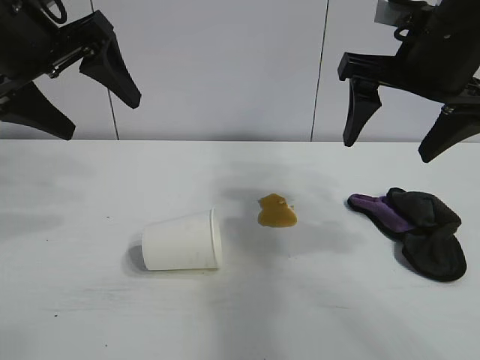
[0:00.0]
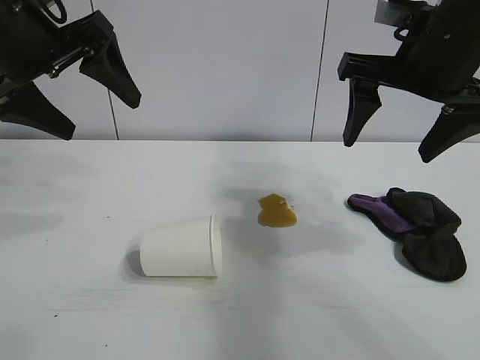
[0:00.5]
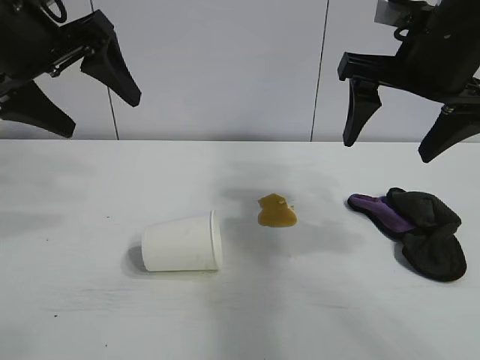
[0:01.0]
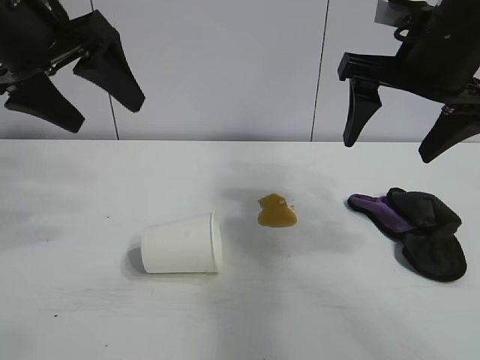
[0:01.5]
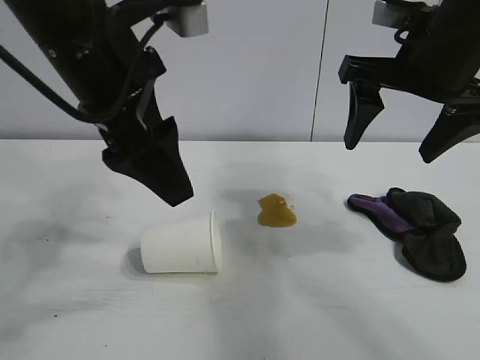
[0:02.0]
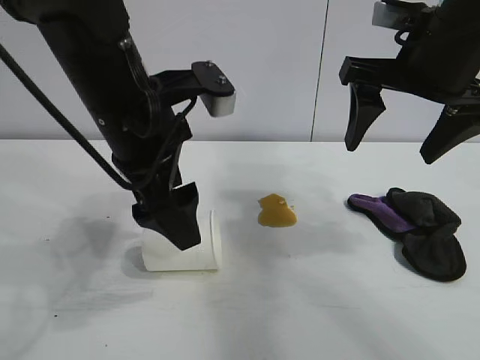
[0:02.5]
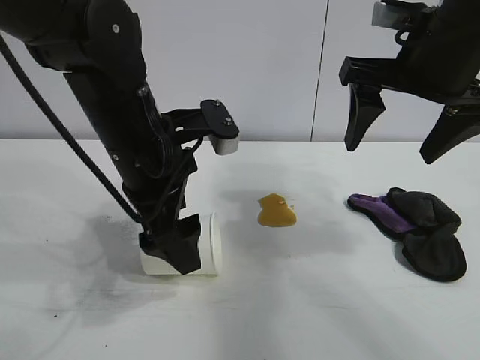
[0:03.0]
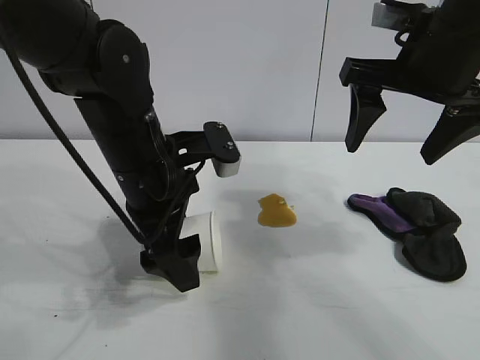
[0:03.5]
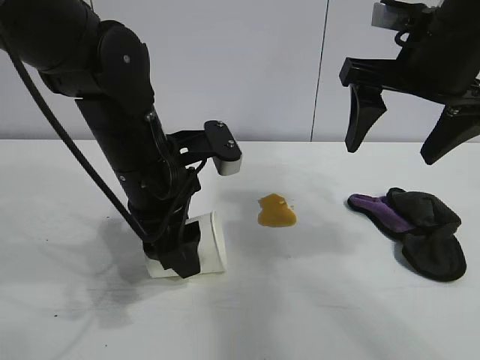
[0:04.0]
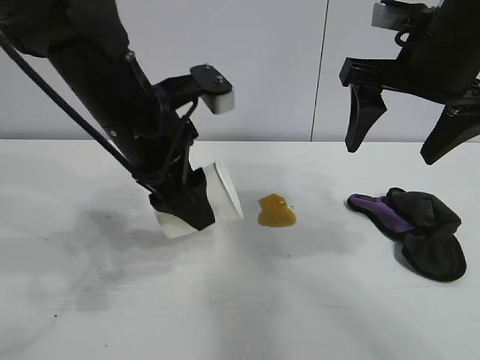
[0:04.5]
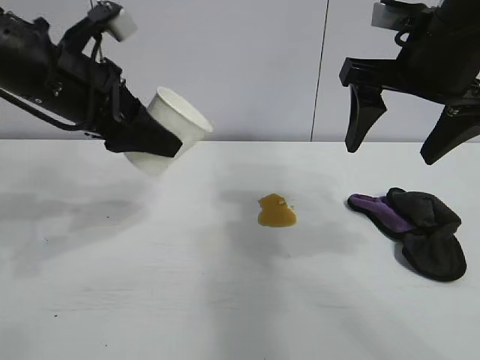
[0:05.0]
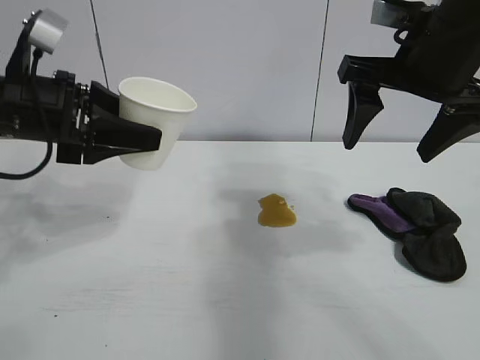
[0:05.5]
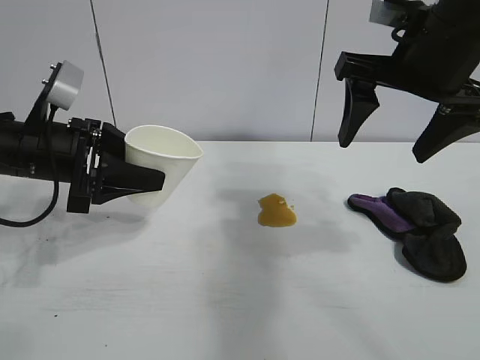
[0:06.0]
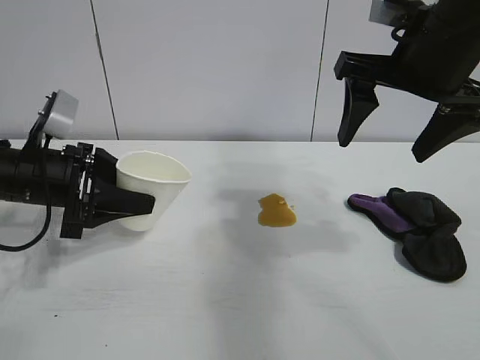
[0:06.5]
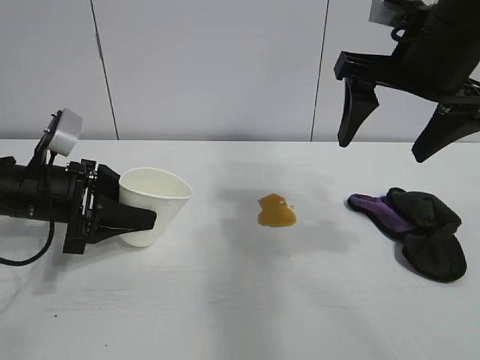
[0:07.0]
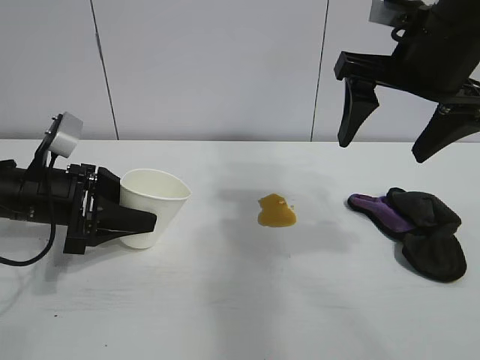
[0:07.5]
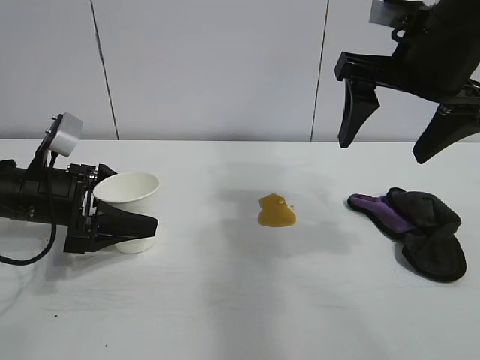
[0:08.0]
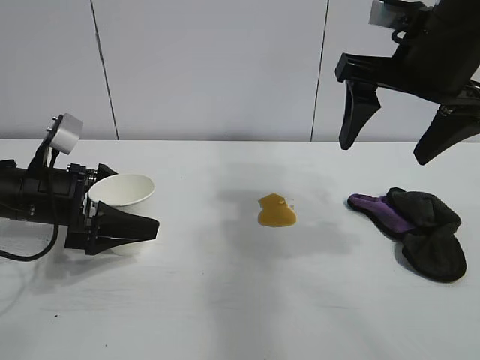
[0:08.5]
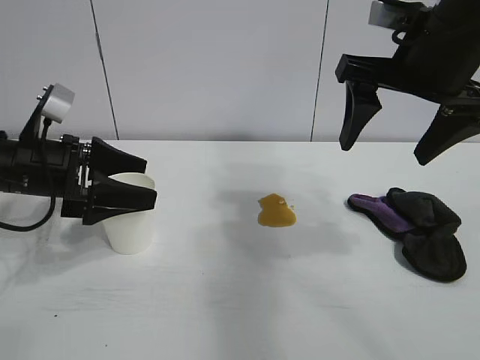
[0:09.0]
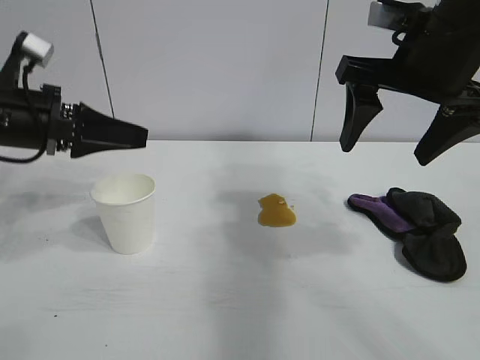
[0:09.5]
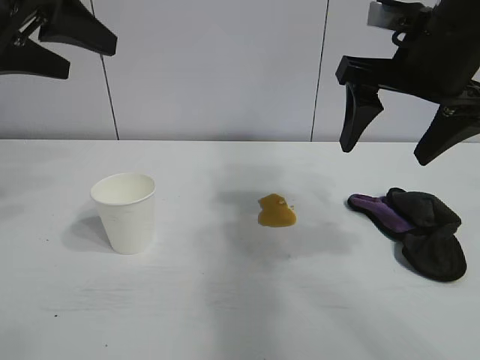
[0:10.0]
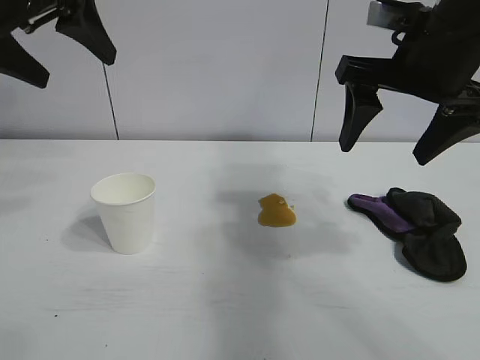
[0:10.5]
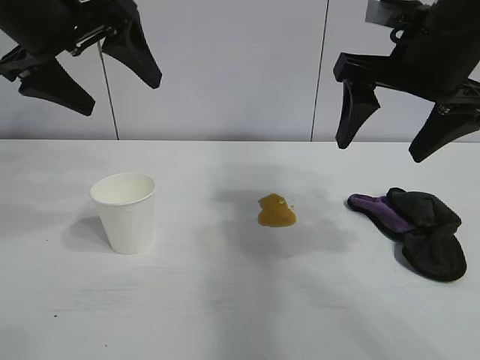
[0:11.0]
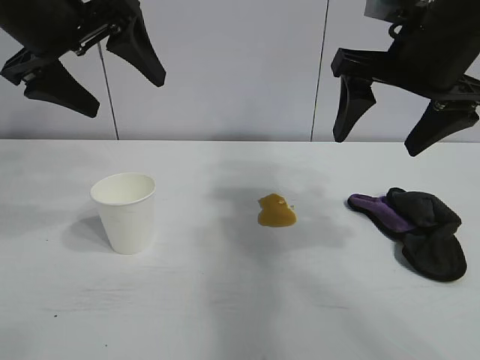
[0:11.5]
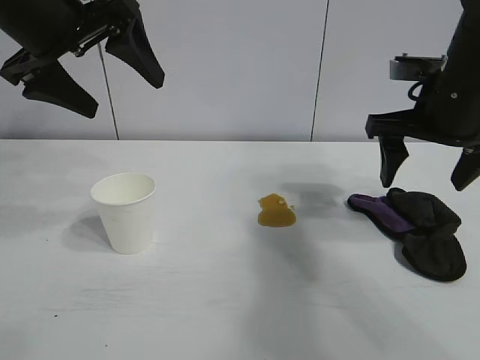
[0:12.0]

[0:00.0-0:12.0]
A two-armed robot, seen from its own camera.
Task of the whole recording: the left gripper pick up the fallen cup and place it upright, the right gripper grasp the black rag and wipe the stain on the table, the right gripper put the black rag back in its original position.
Step, 0:01.5 to 0:03.5: Grasp the paper cup with left gripper.
Step, 0:04.0 to 0:08.0: Stand the paper cup upright with left gripper.

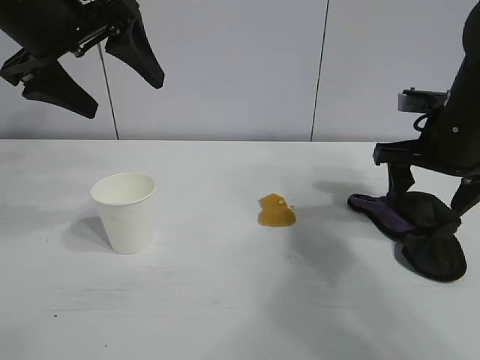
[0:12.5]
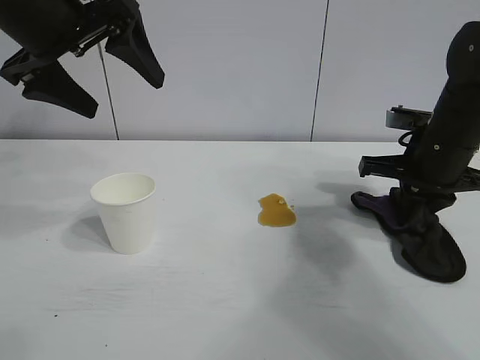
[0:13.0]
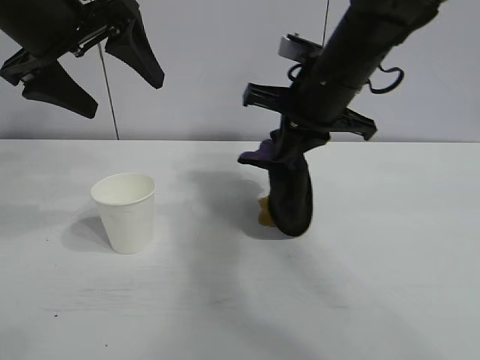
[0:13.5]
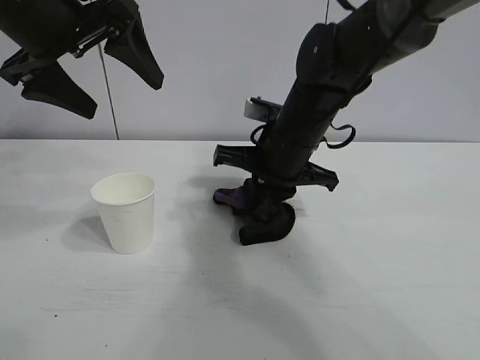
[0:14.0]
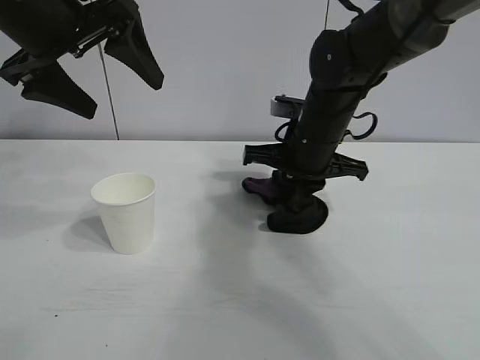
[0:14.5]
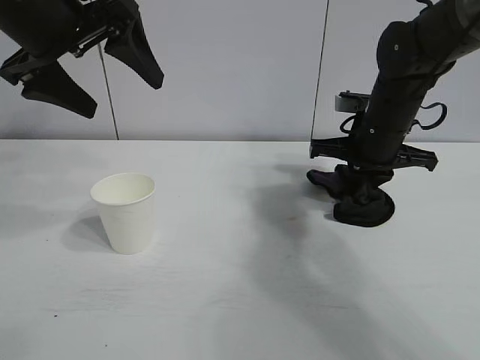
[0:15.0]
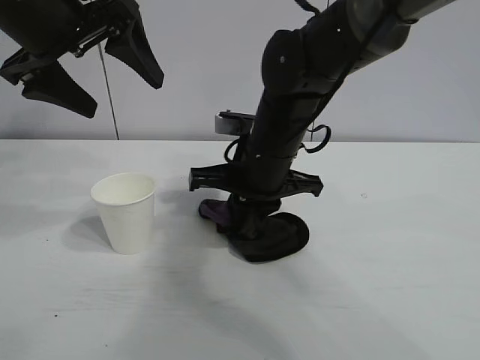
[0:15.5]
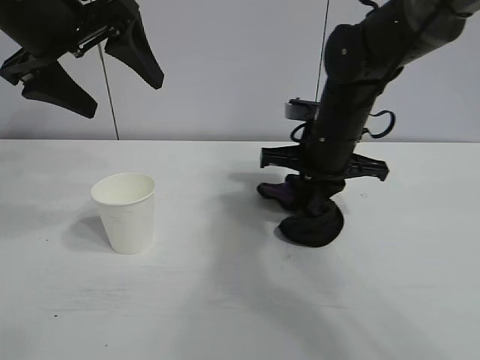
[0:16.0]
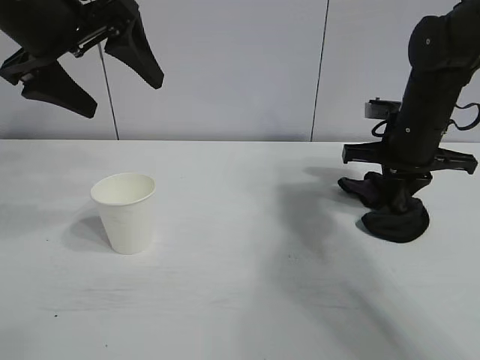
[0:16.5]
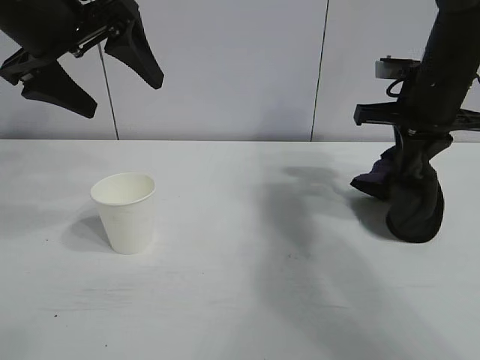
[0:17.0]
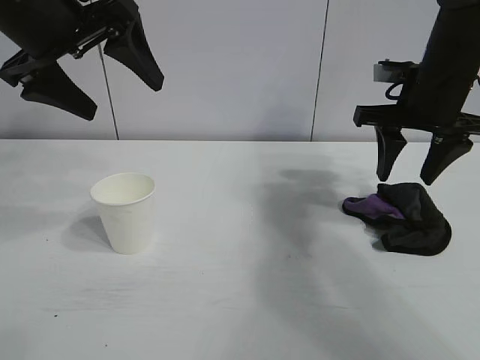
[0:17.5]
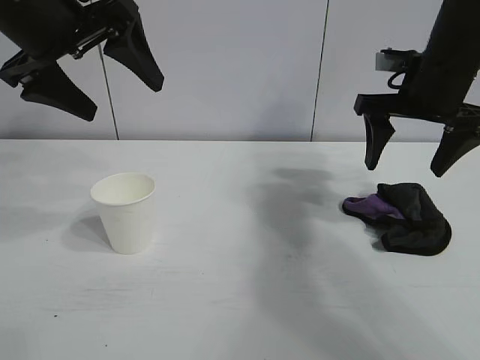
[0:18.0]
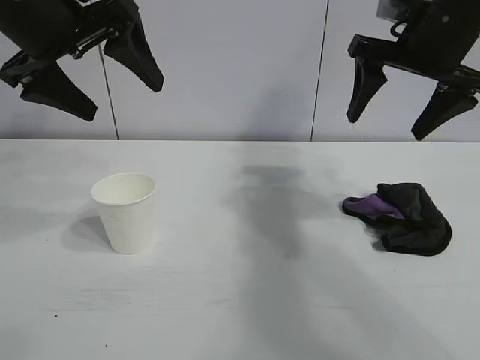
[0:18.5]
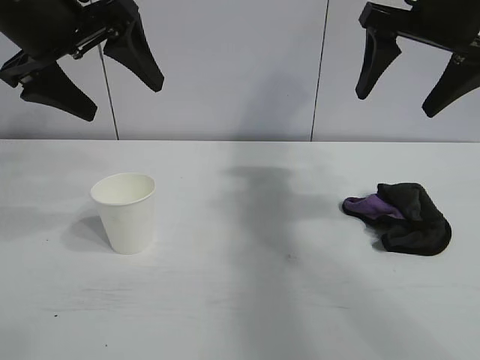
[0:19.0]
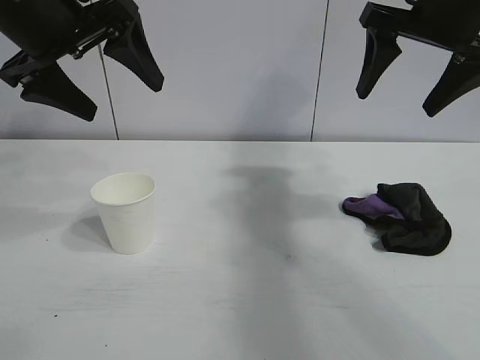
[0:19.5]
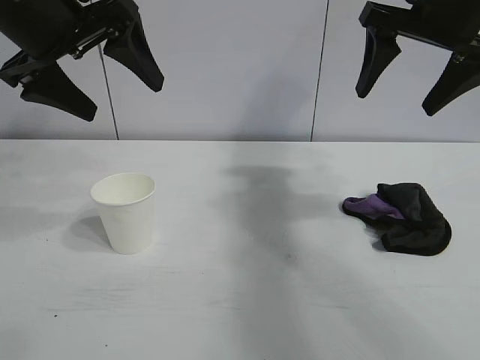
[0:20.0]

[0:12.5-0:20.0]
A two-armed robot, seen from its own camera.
Task of the whole recording: the left gripper pick up the fallen cup and place it upright, the right gripper grasp the black rag and wipe the stain on the table, the right gripper put the black rag back in its original position.
Step, 0:13.0 to 0:16.5: Wipe the stains off the table with the rag with right gripper.

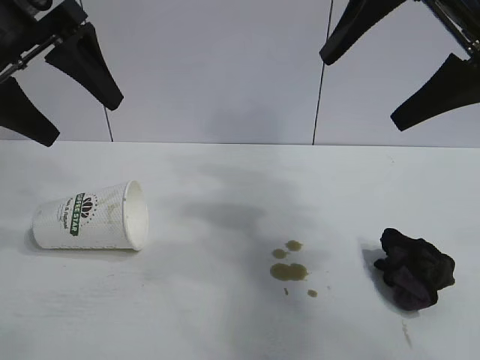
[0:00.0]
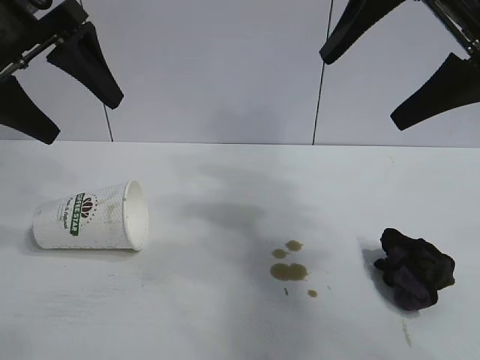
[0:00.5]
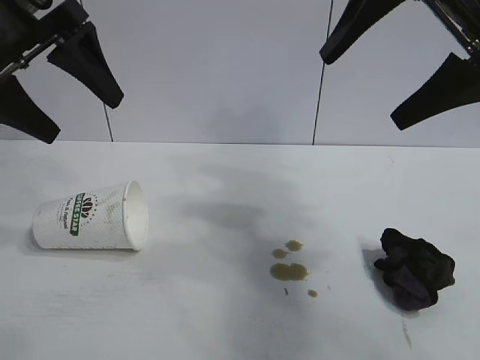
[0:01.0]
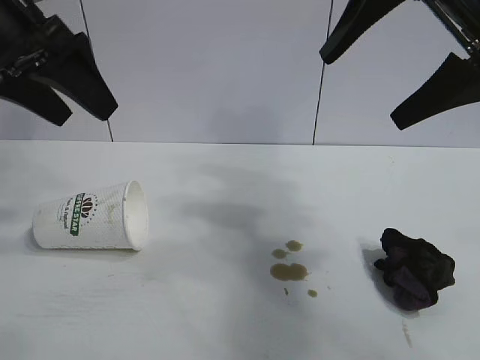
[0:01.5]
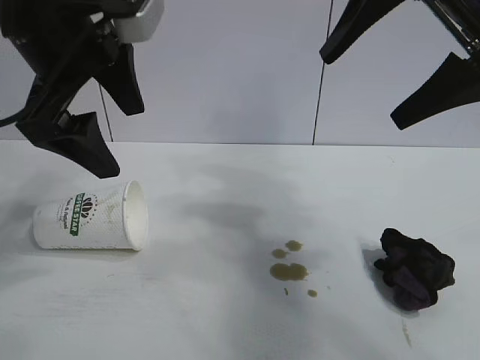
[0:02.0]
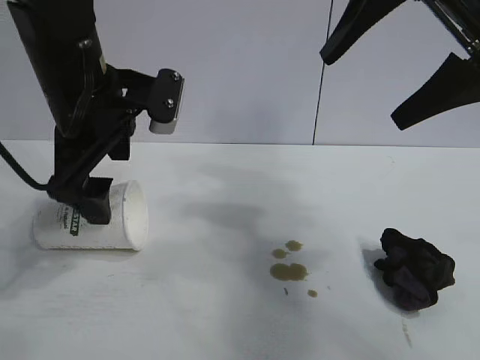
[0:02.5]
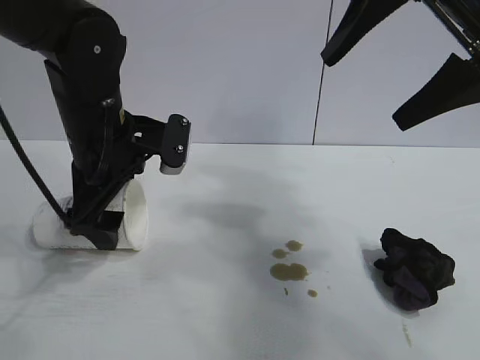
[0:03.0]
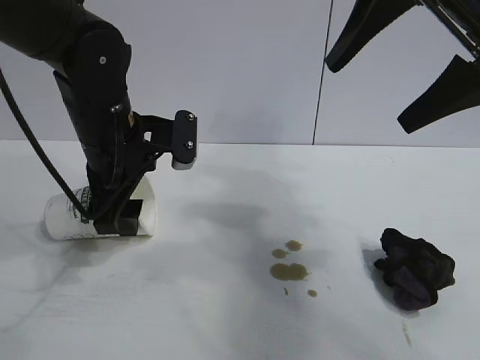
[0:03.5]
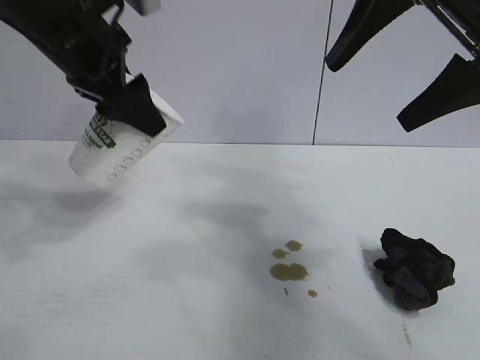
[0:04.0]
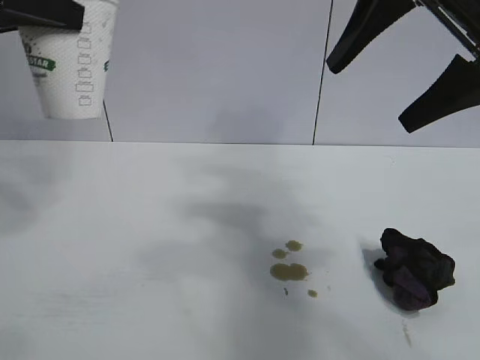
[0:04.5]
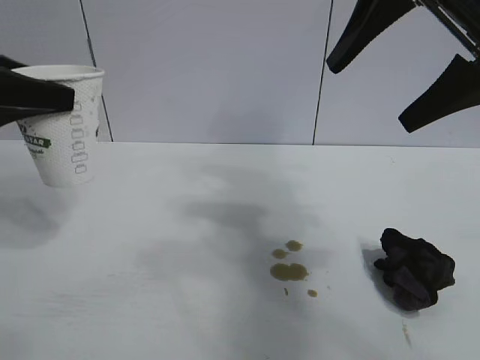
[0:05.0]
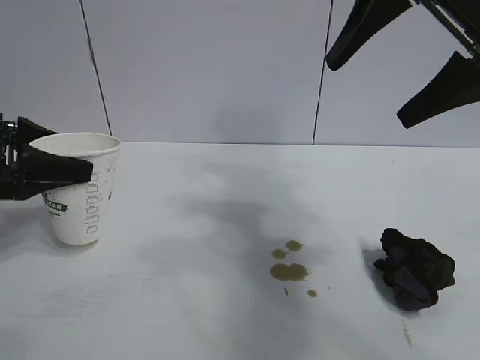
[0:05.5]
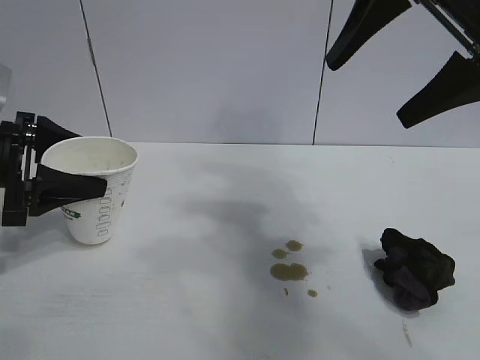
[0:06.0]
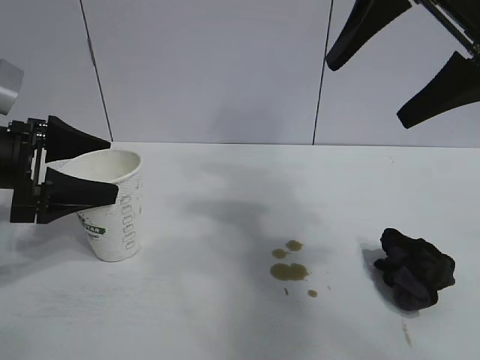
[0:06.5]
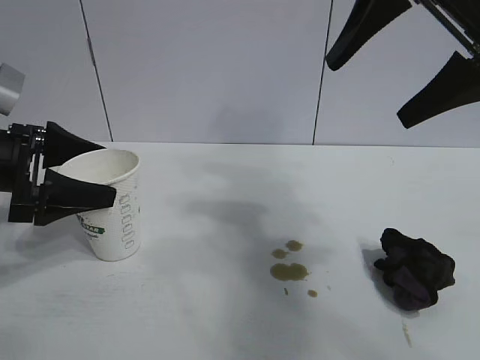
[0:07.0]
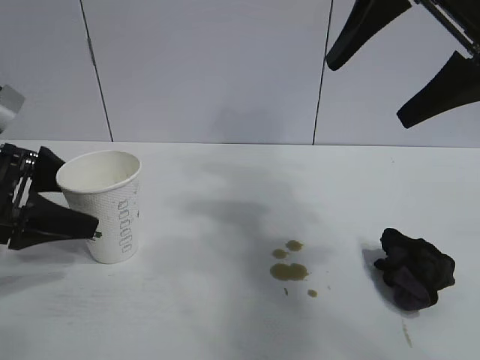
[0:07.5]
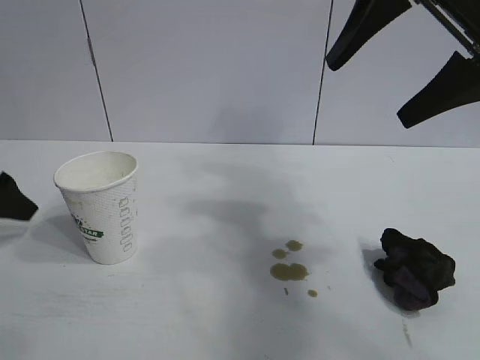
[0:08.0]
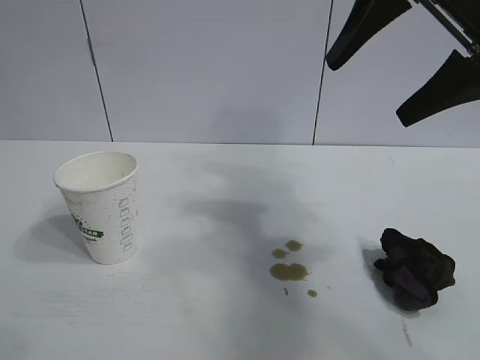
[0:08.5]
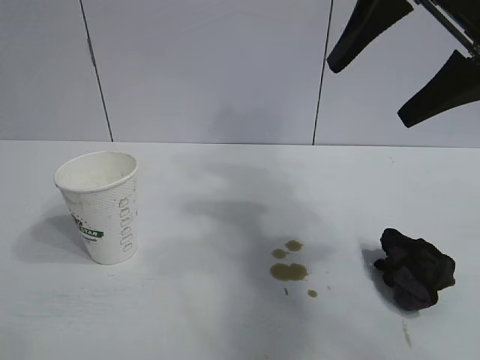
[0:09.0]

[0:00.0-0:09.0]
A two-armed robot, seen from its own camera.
Task of the whole recording: the left gripper pick up the fallen cup and place it upright, the right gripper grasp the black rag and wipe the stain on the table, the right gripper put the black rag back in its original position.
Step, 0:01.0 to 0:03.0: Grasp the paper cup with left gripper.
Step, 0:04.0 to 0:06.5: Stand the paper cup upright with left gripper.
